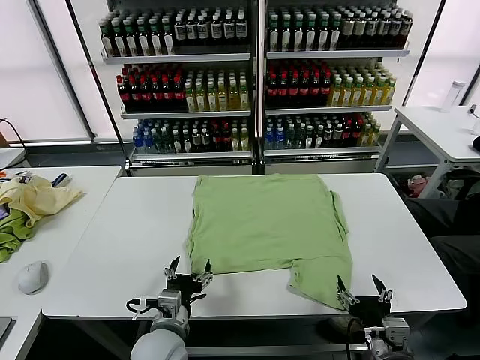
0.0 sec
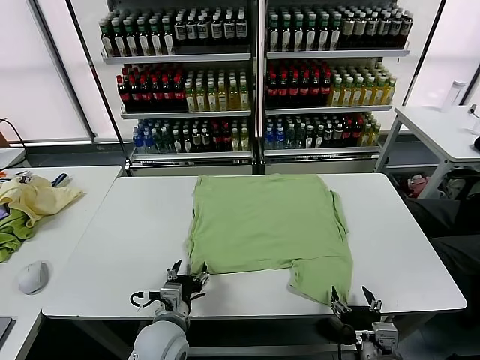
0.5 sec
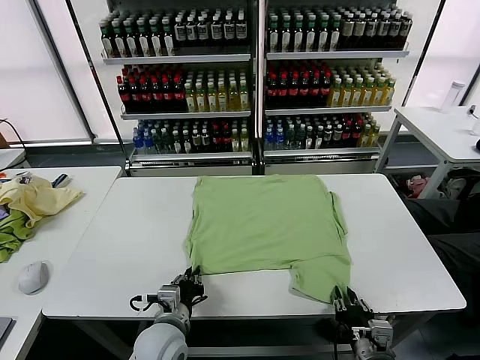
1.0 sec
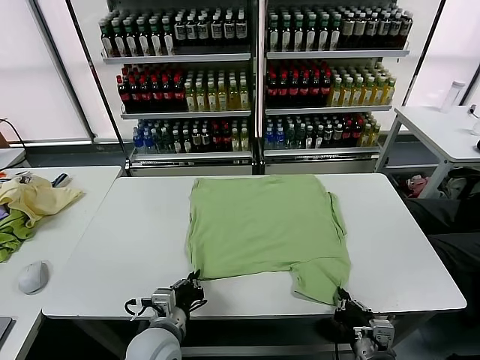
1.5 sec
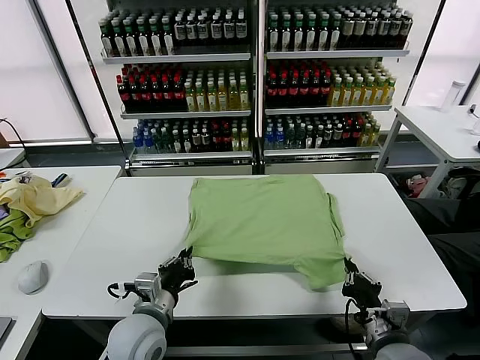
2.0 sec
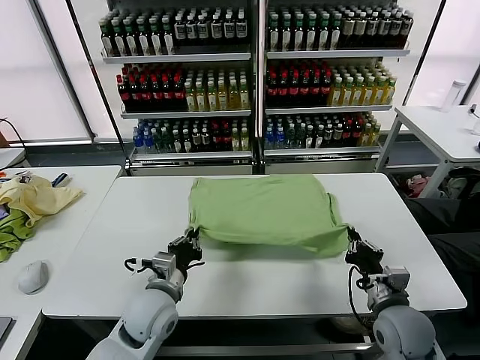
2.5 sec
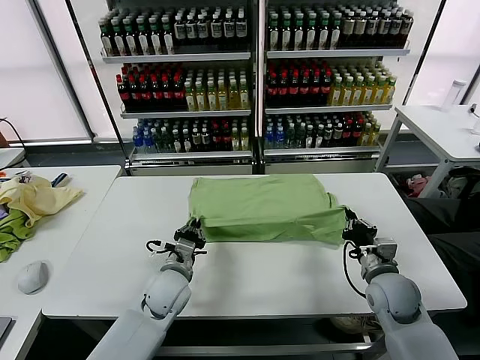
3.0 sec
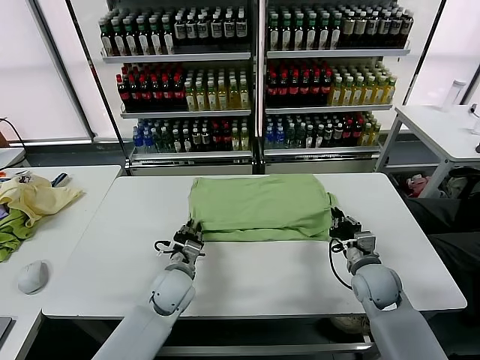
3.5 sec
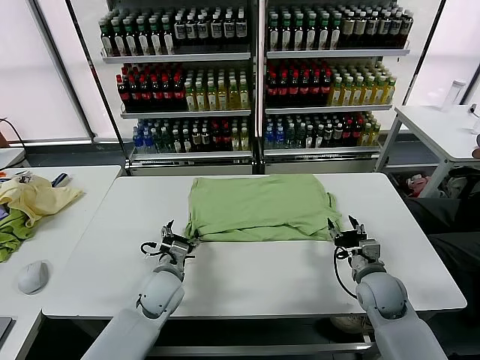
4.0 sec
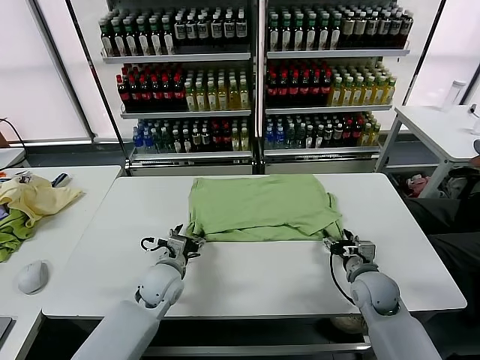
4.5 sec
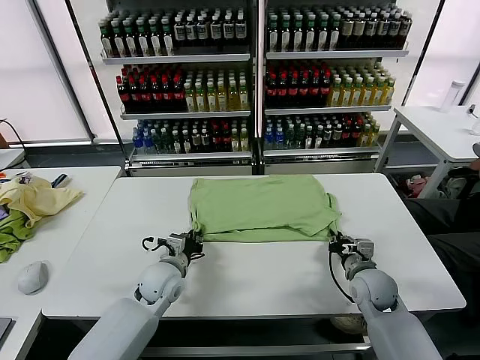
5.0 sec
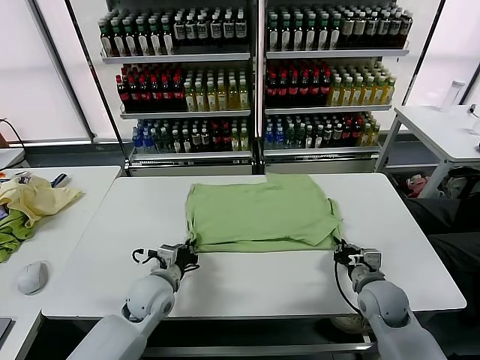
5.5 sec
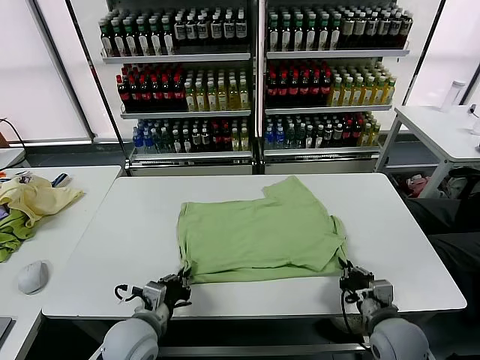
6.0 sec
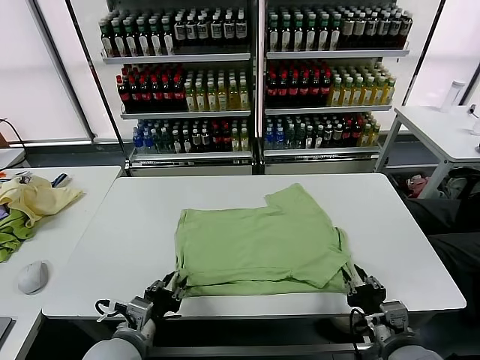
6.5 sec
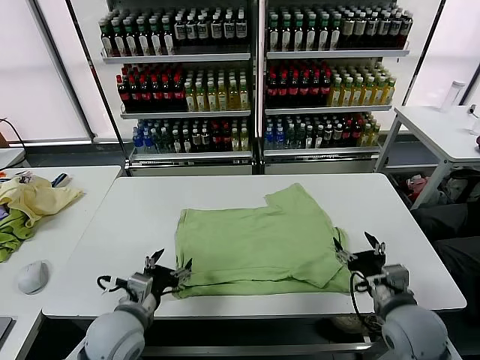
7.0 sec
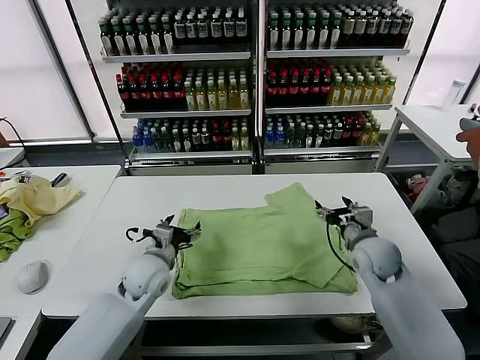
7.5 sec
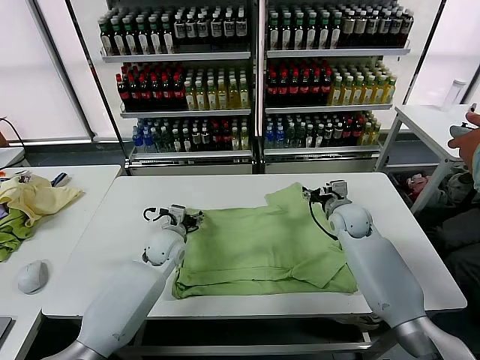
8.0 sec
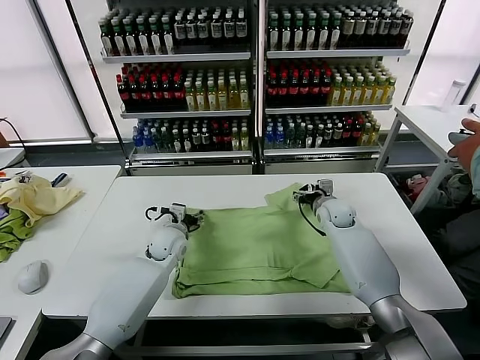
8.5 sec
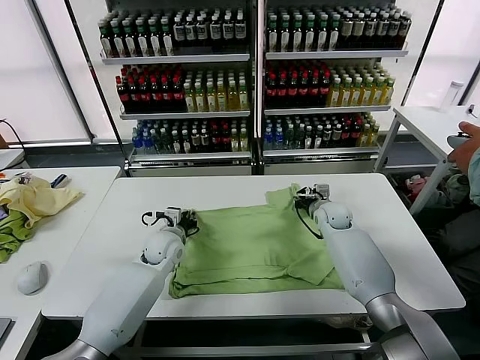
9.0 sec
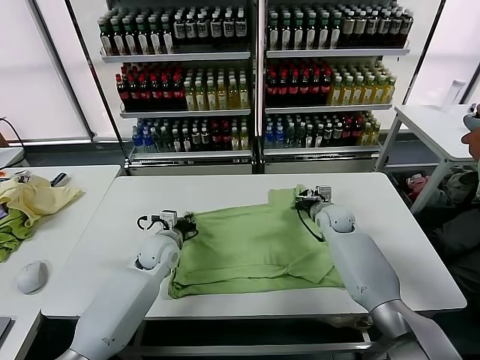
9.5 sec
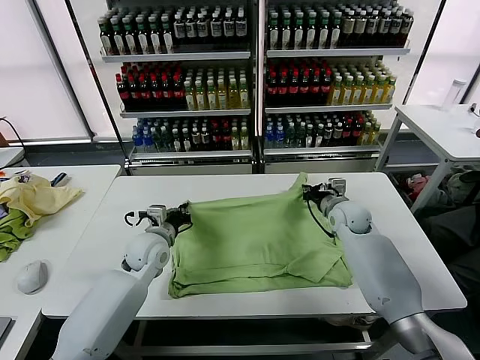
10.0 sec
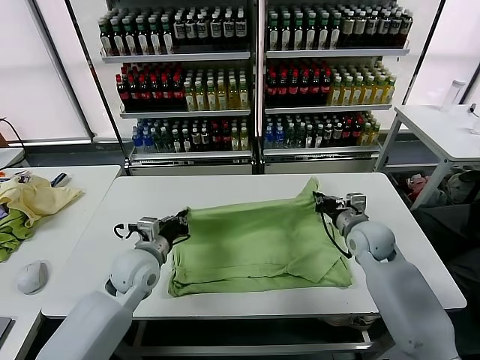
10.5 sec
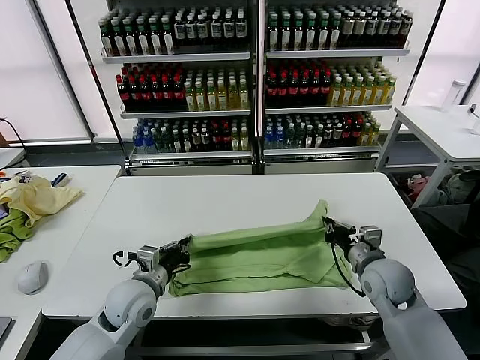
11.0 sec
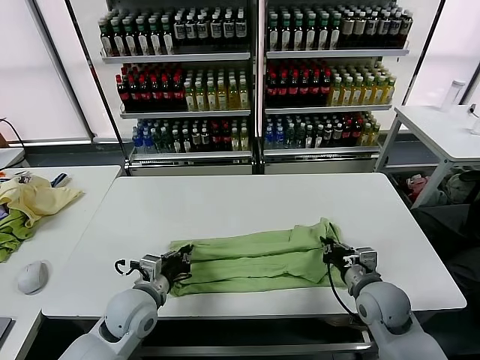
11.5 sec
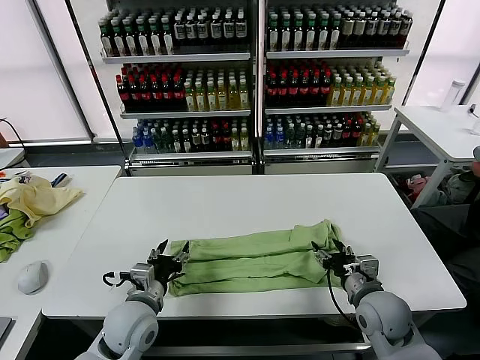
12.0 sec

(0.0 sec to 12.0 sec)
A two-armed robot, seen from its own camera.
Task of the whole recording: fold and organize the clothes.
Step, 0.0 sec - 1.0 sec: use both grippers simultaneously to clamp the lower edge of the clothing fabric.
Step, 1.5 sec - 3.5 sec: use both grippers to drag the lower edge of the fabric forward and fold it over the upper edge.
Step, 4.0 sec - 6.5 sec: Drag the clothes downward with both gripper.
Step, 7.0 sec - 9.0 sec: use both grippers simultaneously to clamp the upper edge of the clothing fabric.
Step, 9.5 sec - 11.5 sec: use both grippers to drag the upper edge of the fabric backward and fold it over the lower edge.
2.0 sec - 4.0 sec: The left gripper goes some 15 cm forward and downward, and opens, while the right gripper goes some 15 cm forward, and opens its fingers.
4.0 sec - 6.0 sec: The two grippers go roughly 15 cm backward. The right gripper closes up. The left gripper closes.
6.0 sec - 8.0 sec: Both grippers travel together forward, about 25 cm. The right gripper opens its fingers. Meanwhile the left gripper opens.
8.0 sec - 10.0 sec: The right gripper closes its fingers. Meanwhile the left gripper ends up some 5 cm from where it was, and closes its fingers.
10.0 sec - 12.0 sec: The grippers both shift backward by roughly 20 cm. The left gripper opens. Meanwhile the right gripper opens its fingers.

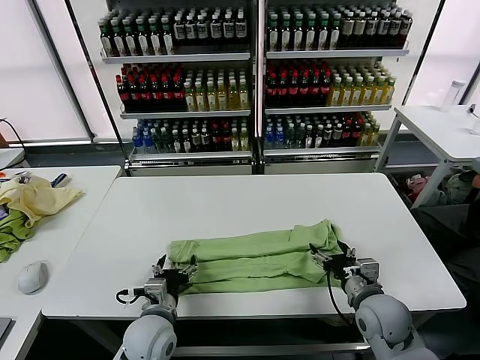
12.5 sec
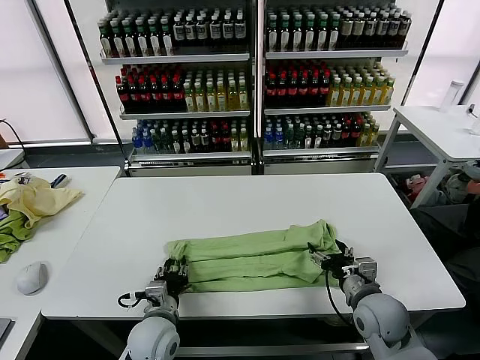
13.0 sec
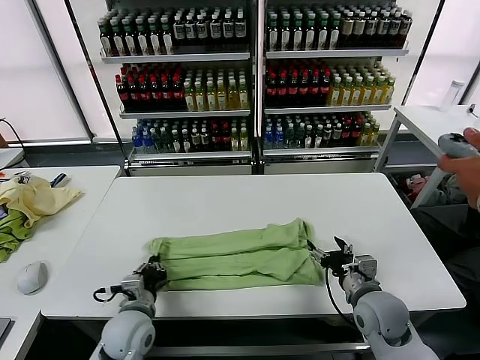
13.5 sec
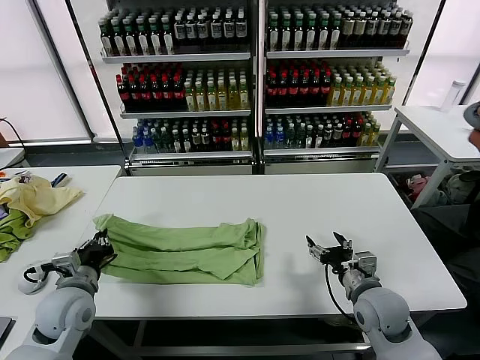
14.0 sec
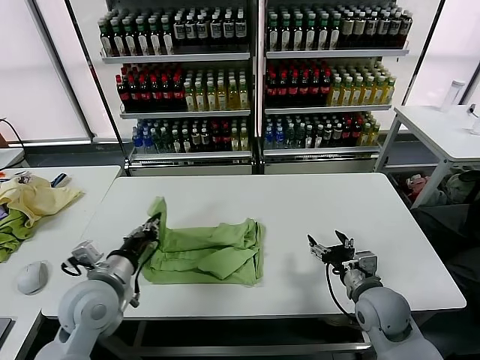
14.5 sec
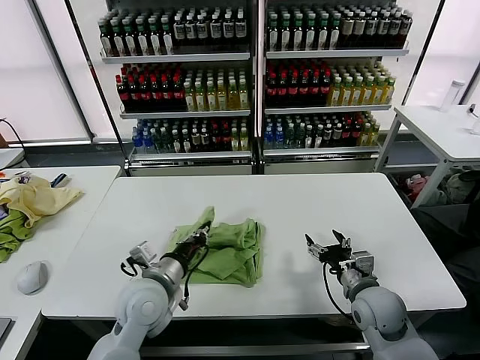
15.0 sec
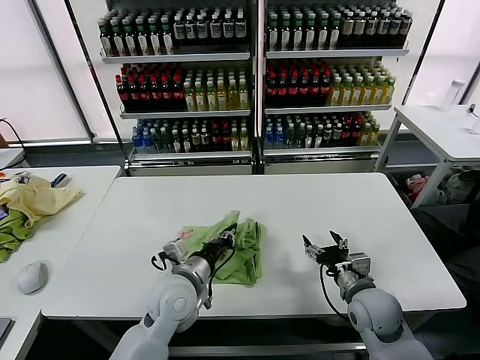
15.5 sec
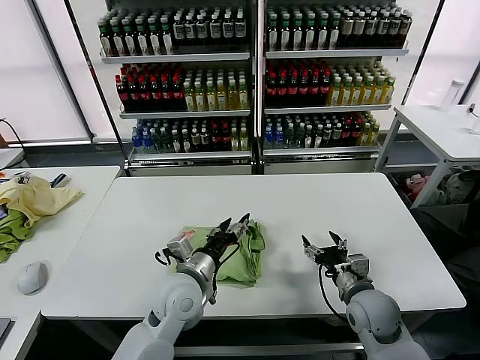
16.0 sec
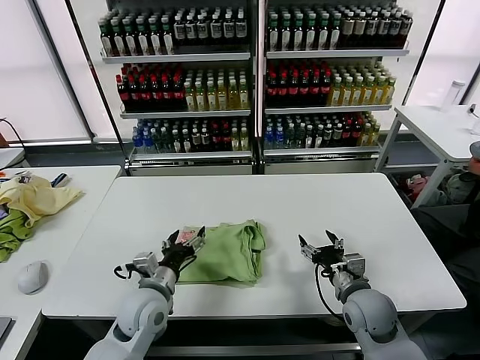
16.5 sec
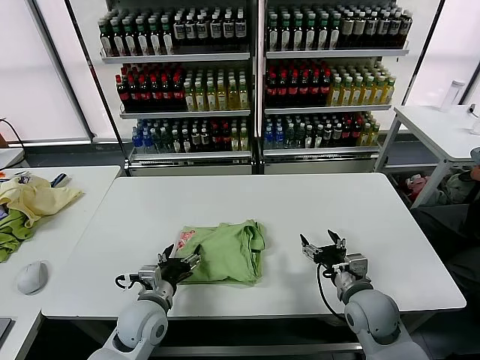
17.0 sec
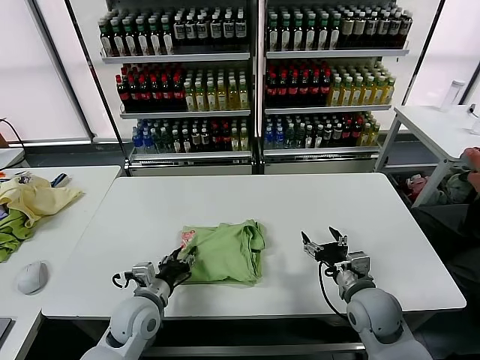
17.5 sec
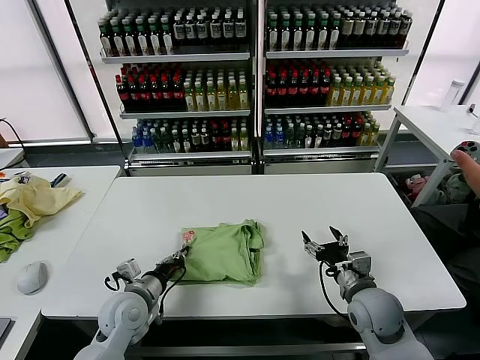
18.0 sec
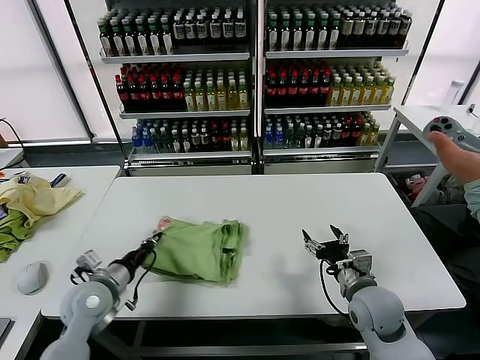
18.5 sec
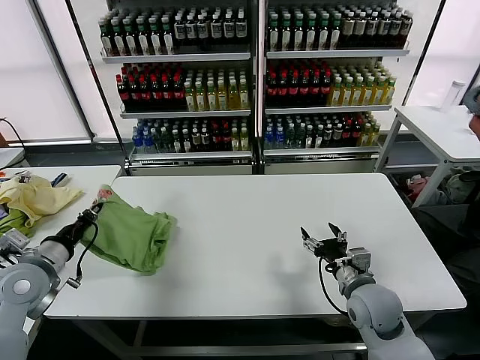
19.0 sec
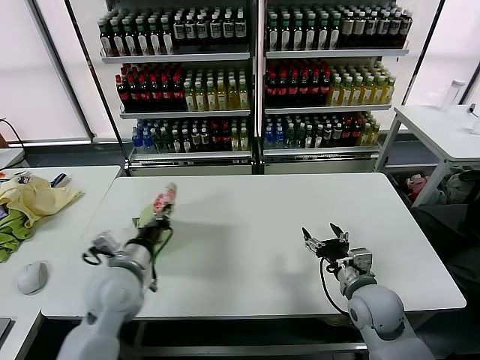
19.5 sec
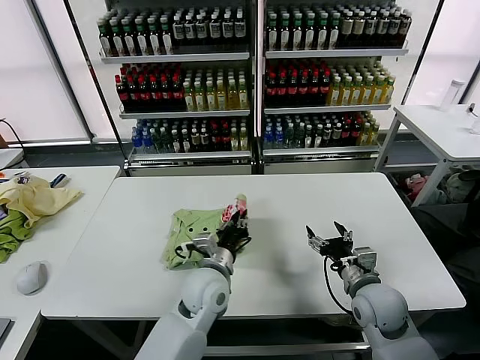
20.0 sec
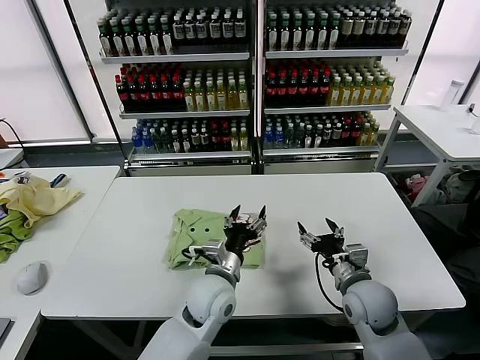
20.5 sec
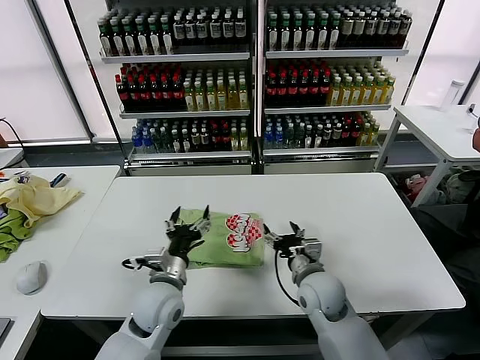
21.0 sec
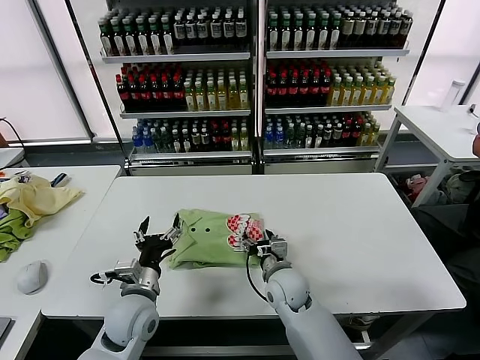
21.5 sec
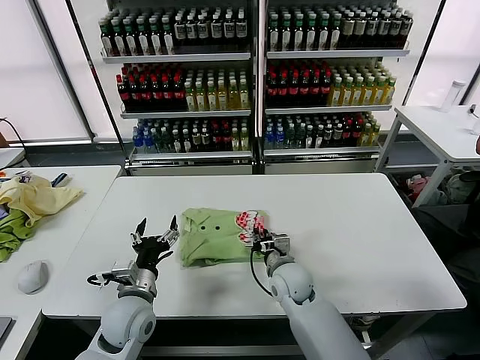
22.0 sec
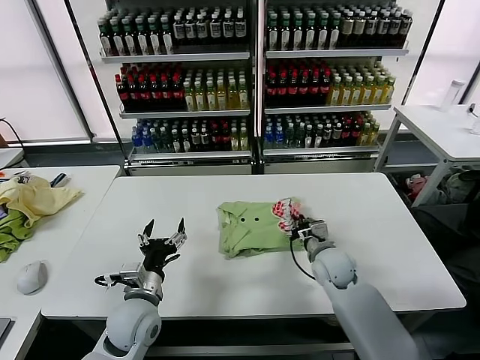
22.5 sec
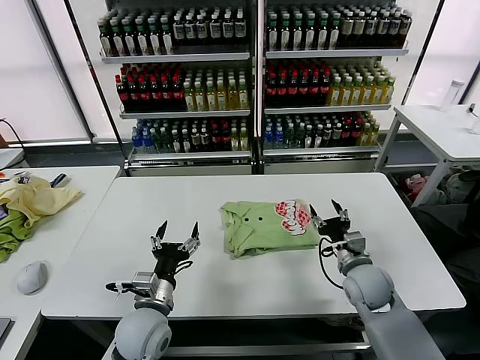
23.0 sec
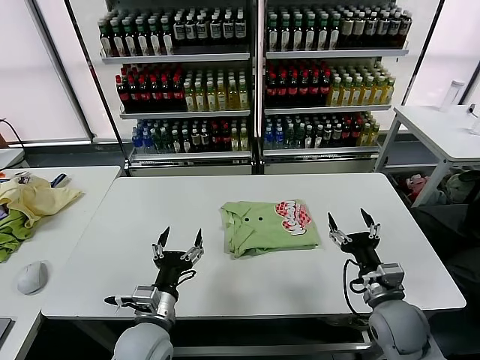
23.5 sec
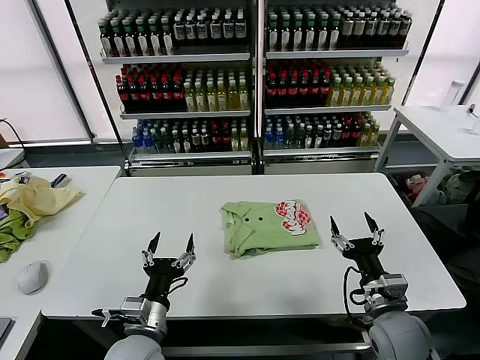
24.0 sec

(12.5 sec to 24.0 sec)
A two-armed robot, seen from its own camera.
Task of the whole recording: fold and organize the clothes.
Step, 13.5 sec - 15.5 sec: use the left gripper to drag the left edge of the fabric to the left and folds it over the right edge.
Step, 16.0 sec - 20.0 sec: Flip the folded clothes over with left gripper.
Step, 20.5 sec - 22.5 sec: Drag the clothes to the center of the table.
12.5 sec - 14.5 sec: The left gripper shifts some 15 cm upward and to the left, and closes up.
14.5 sec - 16.5 sec: The left gripper travels to the right and downward by approximately 10 cm, and opens.
16.5 sec - 18.5 sec: The left gripper is displaced to the left by roughly 10 cm, and closes up.
18.5 sec - 20.0 sec: The left gripper goes some 25 cm to the right.
20.0 sec - 22.0 sec: The left gripper goes roughly 15 cm to the left, and opens up, while the right gripper shifts some 20 cm to the left and forward, and closes up.
22.0 sec - 24.0 sec: The left gripper shifts some 10 cm backward; the right gripper moves to the right and backward, approximately 25 cm, and opens up.
